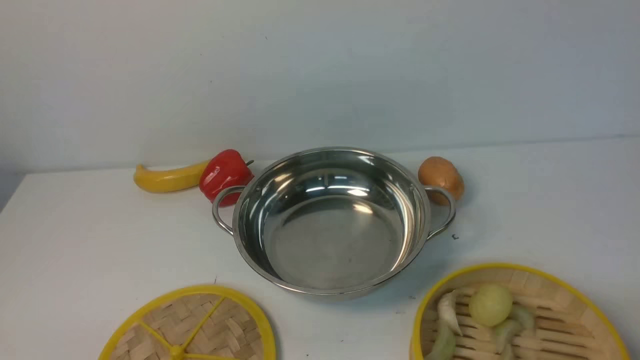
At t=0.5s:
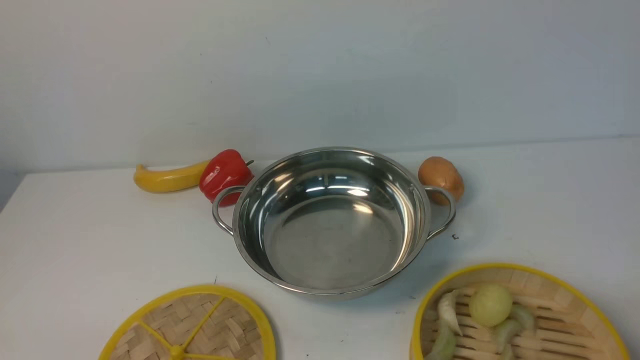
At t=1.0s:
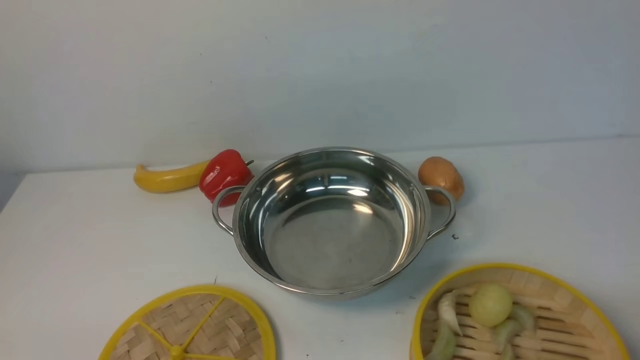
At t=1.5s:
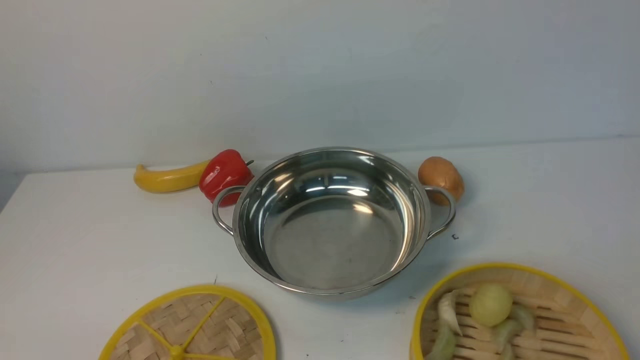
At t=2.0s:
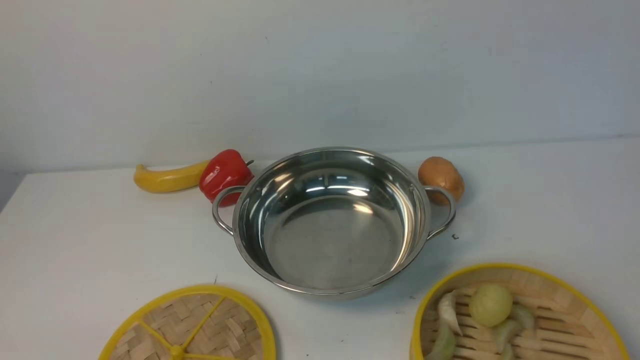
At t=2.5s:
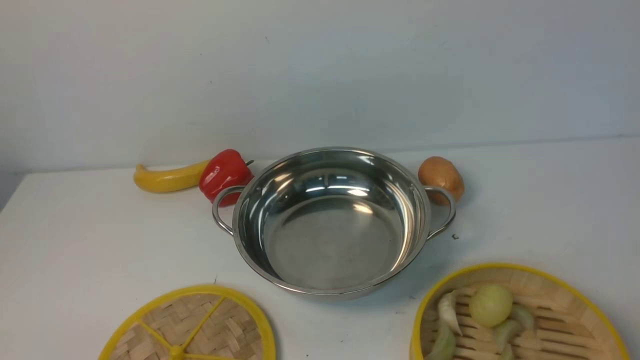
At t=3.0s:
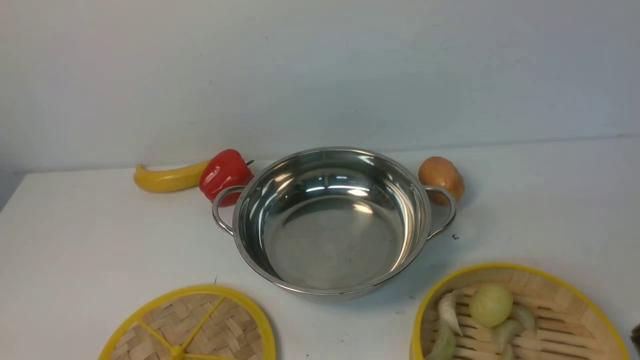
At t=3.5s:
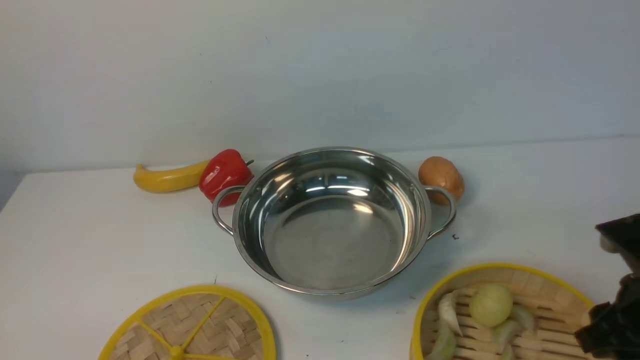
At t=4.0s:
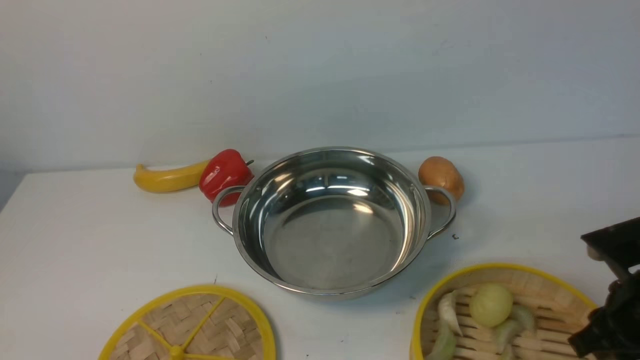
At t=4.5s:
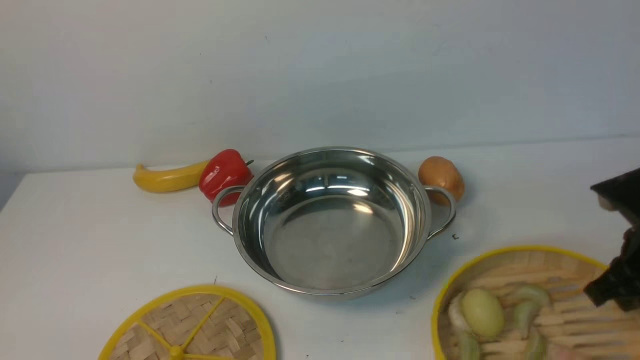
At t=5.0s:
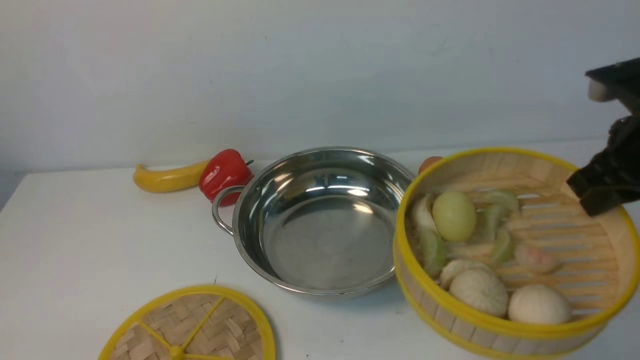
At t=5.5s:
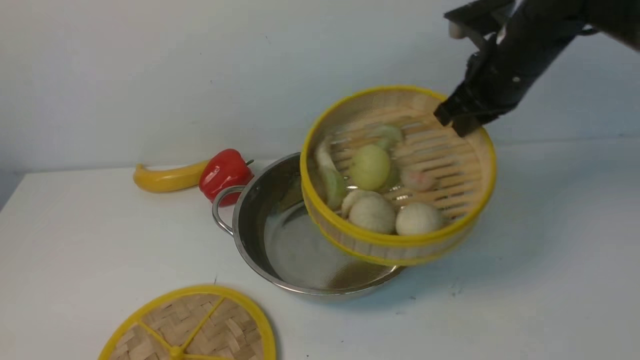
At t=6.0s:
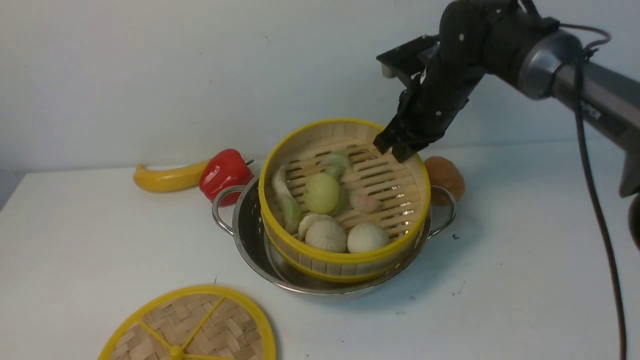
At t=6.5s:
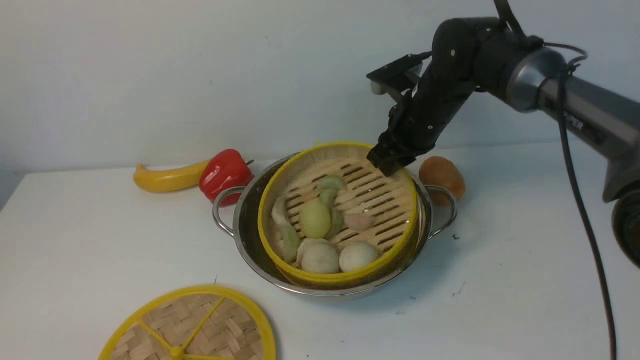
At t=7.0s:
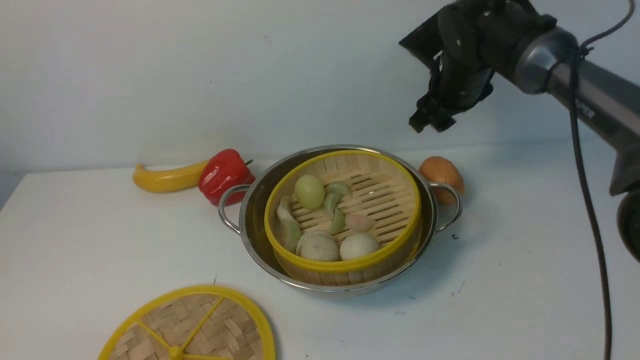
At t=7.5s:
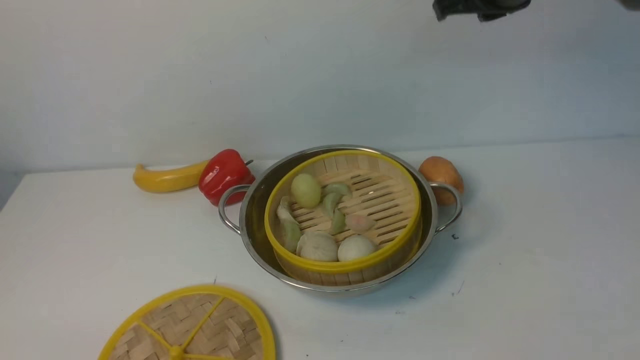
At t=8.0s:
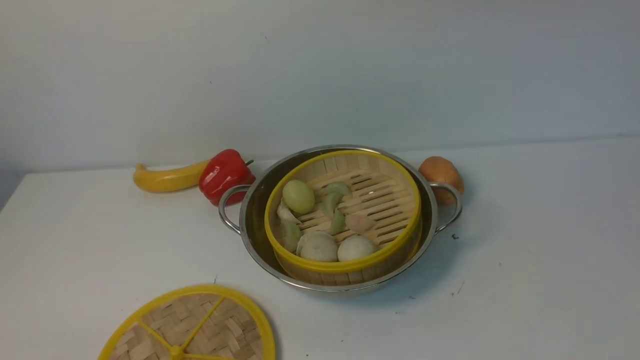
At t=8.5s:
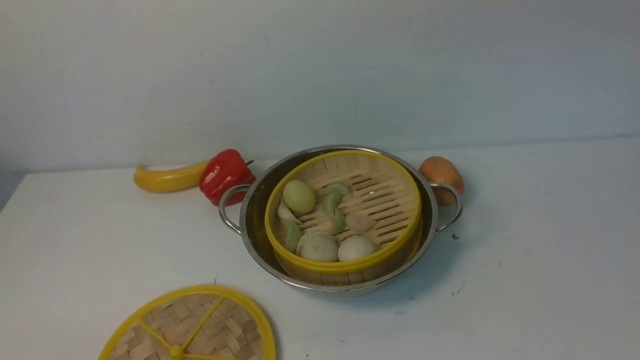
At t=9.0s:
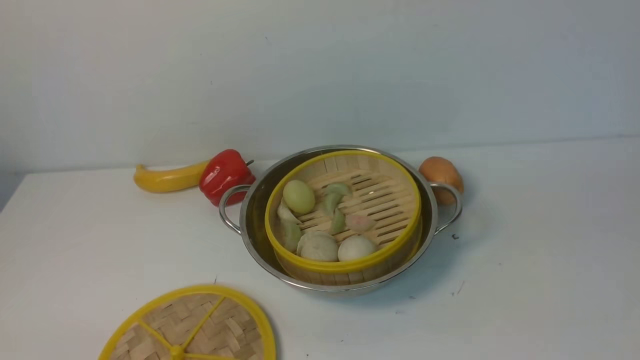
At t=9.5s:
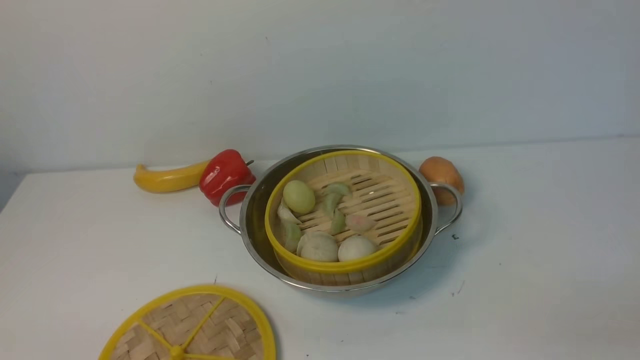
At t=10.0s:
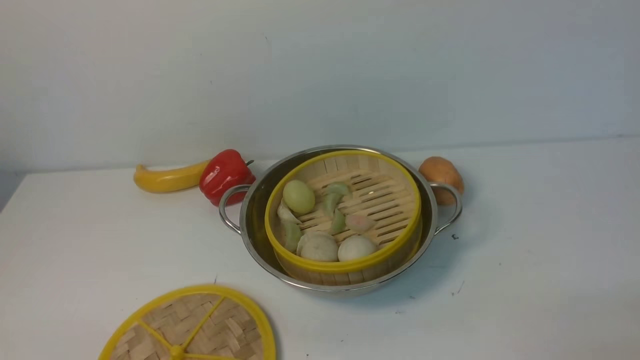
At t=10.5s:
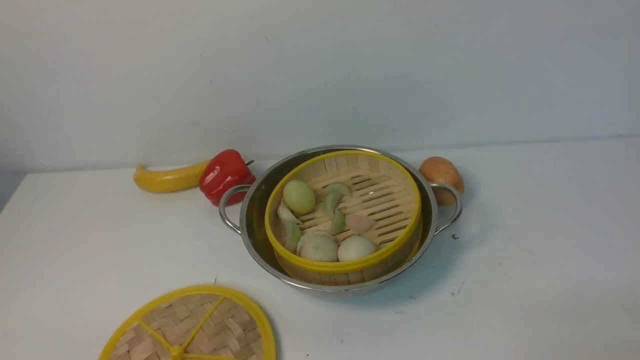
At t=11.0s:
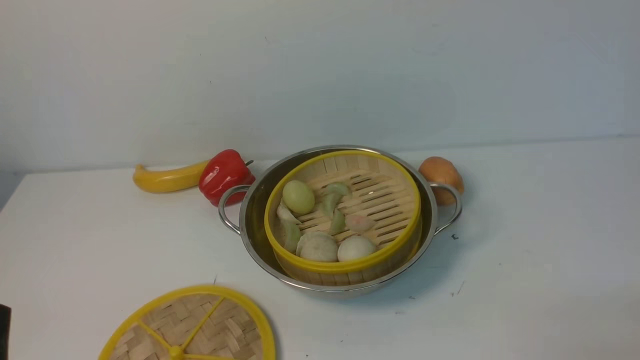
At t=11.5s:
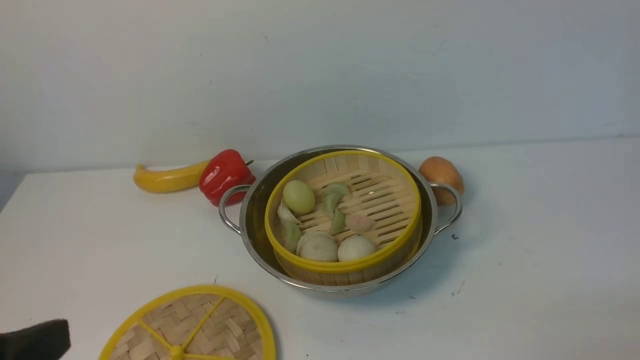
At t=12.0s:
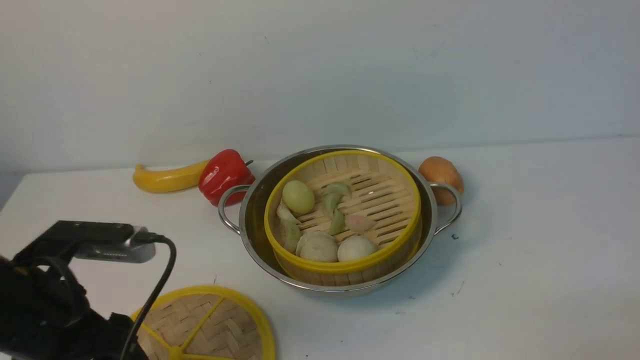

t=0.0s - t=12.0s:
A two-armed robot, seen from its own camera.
Task of the whole recording: place the steamer in the pot on the white table, and put the lid on the steamer.
Step, t=0.0s - t=4.5s: use the right arm to lift the steamer closest to it.
Step, t=5.0s - t=8.0s: use the right arm to put the steamer into the iron steamer pot in the middle.
t=2.0s - t=4.0s: The right gripper is displaced forward and downward by approximately 30 cm.
t=4.0s - t=6.0s: The right gripper goes some 30 cm forward and to the left, and closes its fingers.
t=6.0s - t=8.0s: The right gripper shifts about 30 cm upward and backward, and opens, then closes again.
t=10.0s - t=12.0s: The left gripper moves forward and upward, roughly 15 cm.

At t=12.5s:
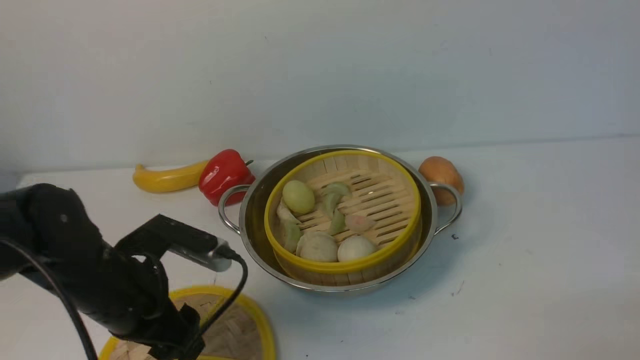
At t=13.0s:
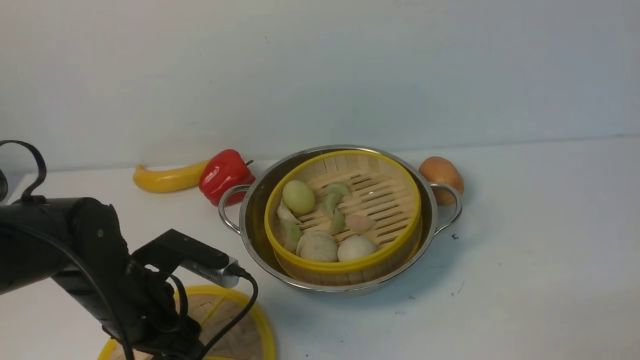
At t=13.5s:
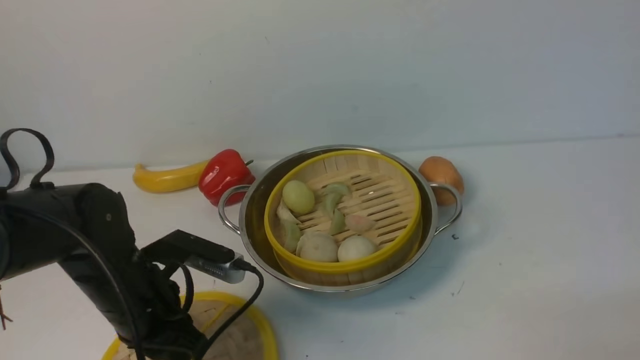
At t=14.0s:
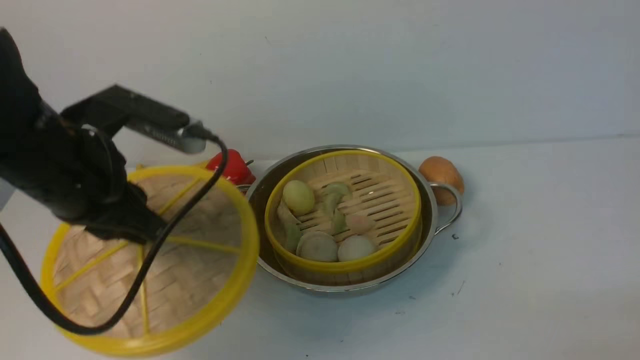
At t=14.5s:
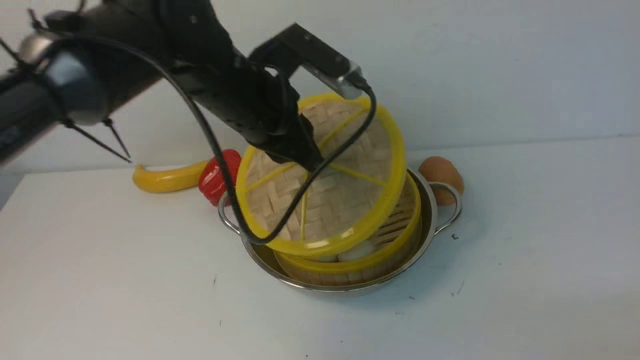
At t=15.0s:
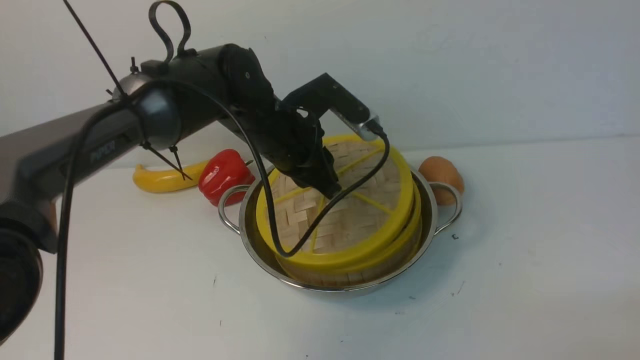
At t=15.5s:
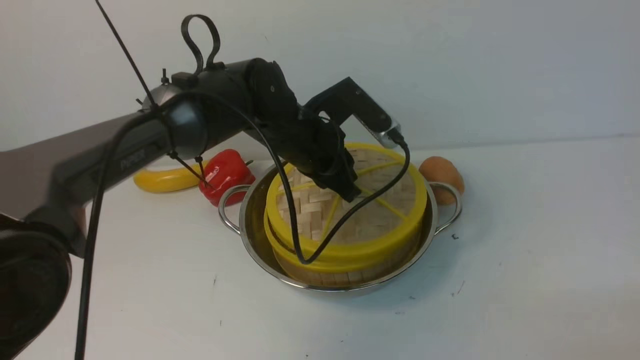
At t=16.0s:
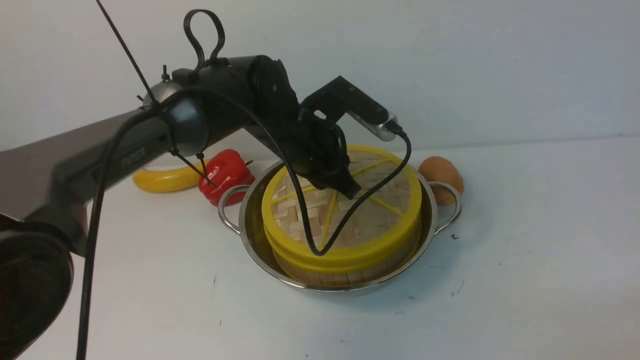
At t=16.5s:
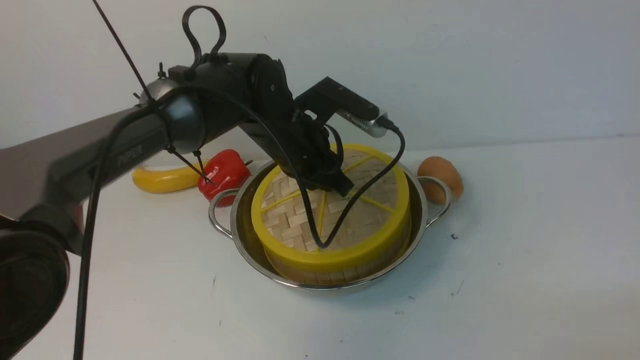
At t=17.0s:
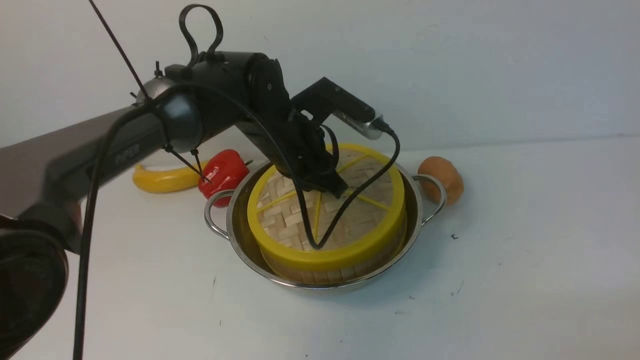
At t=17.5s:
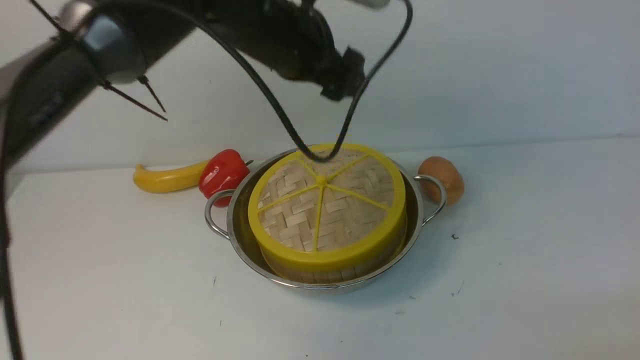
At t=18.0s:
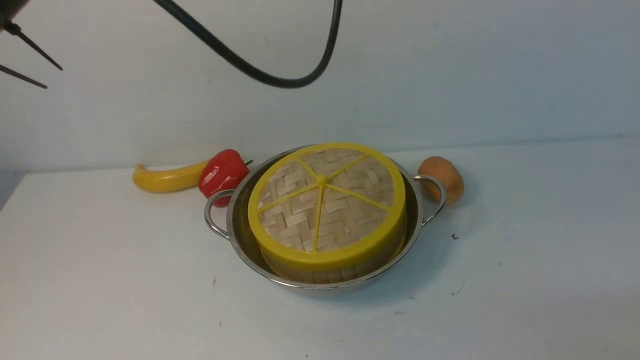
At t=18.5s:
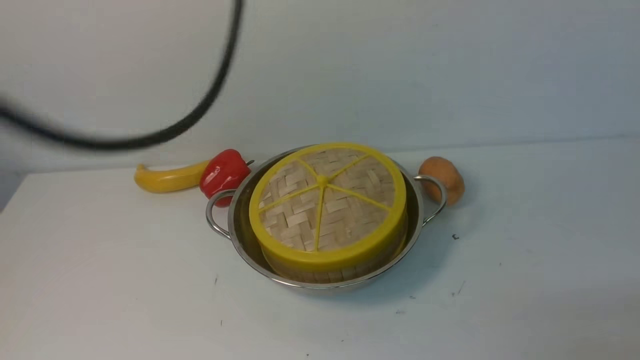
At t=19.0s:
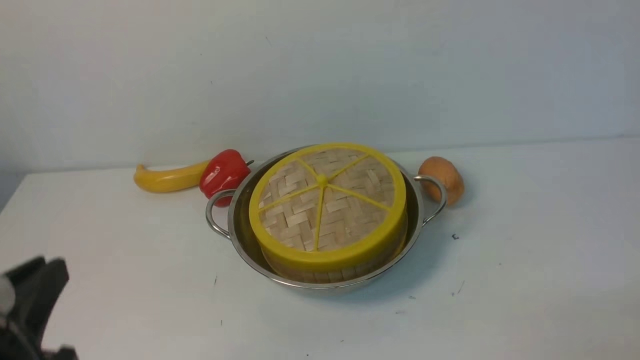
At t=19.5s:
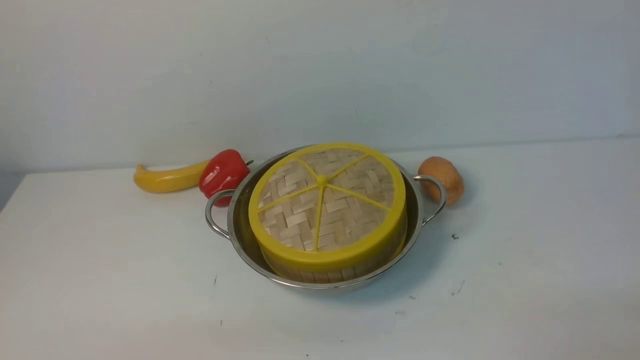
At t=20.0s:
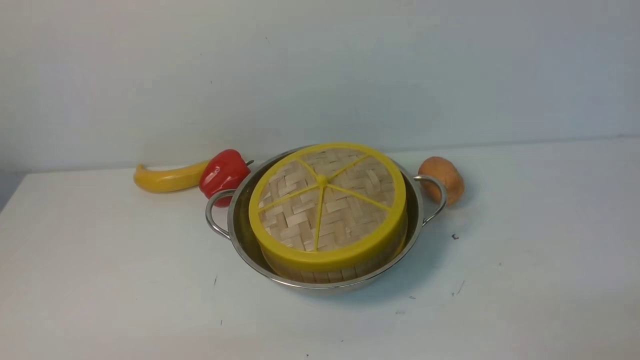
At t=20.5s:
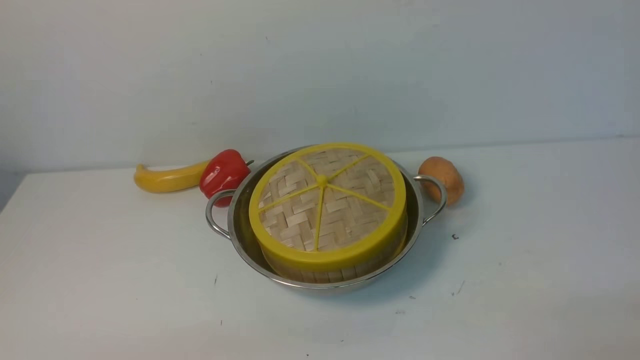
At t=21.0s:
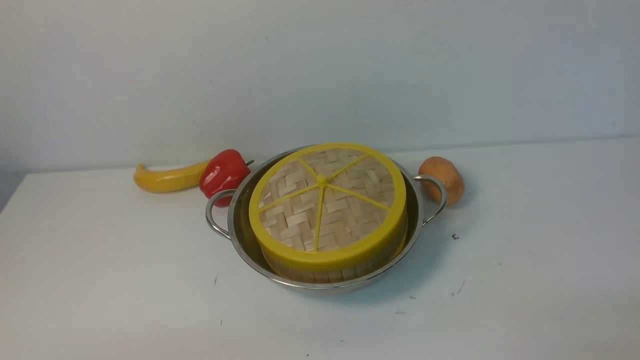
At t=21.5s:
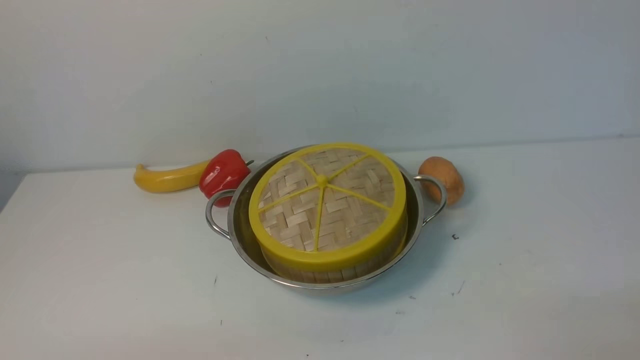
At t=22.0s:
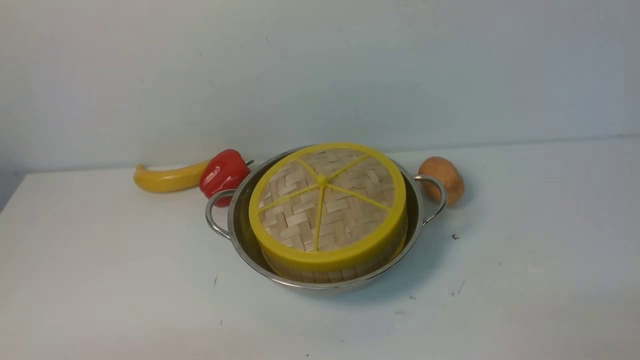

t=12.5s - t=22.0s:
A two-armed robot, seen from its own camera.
Task of the whole recording: place the steamer in the pot on the white table, and put the lid on the steamer.
Step, t=14.0s - t=17.5s: use the left arm to place the steamer lid on the steamer.
t=12.5s - t=14.5s: The left gripper goes about 20 cm forward, to the right and upward, and closes.
t=14.5s - t=16.5s: The left gripper heads downward, covering approximately 5 cm.
t=16.5s - t=18.0s: The left gripper moves upward, some 25 cm, and opens, then closes again.
t=18.0s - t=20.0s: The left gripper goes about 40 cm backward, downward and to the left.
